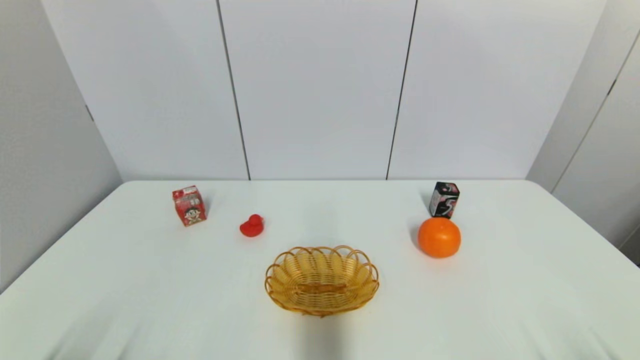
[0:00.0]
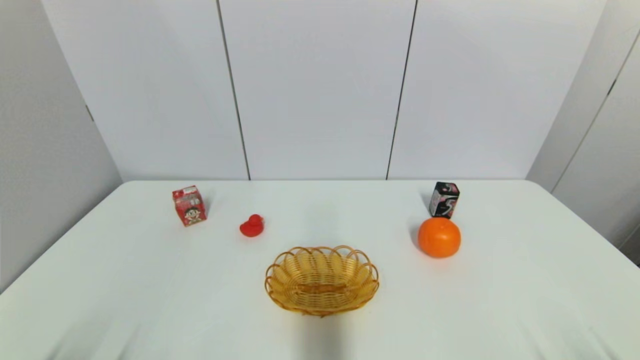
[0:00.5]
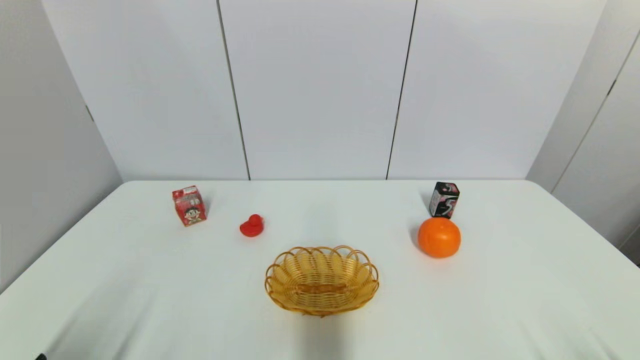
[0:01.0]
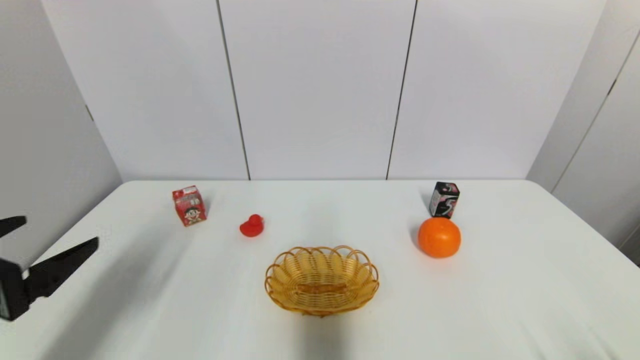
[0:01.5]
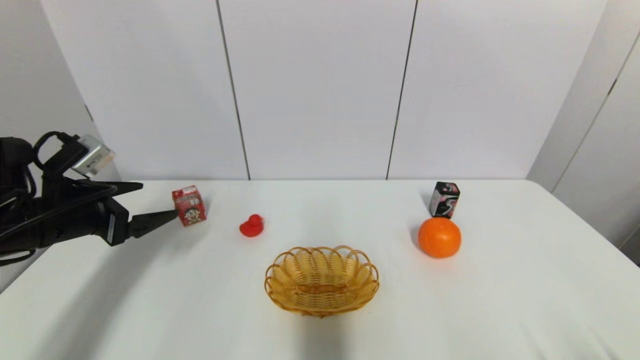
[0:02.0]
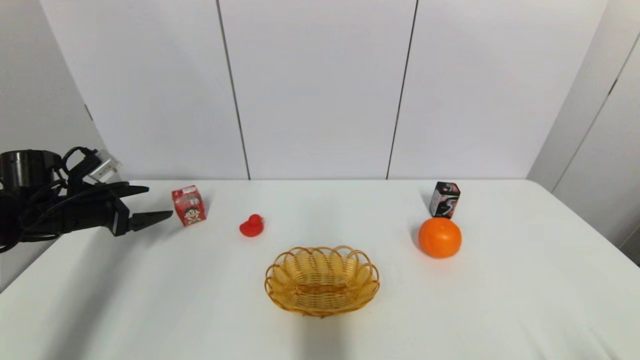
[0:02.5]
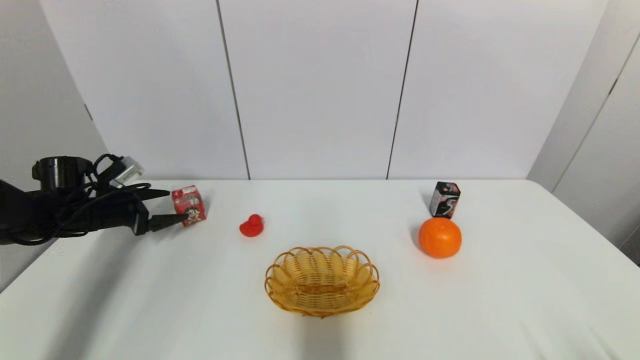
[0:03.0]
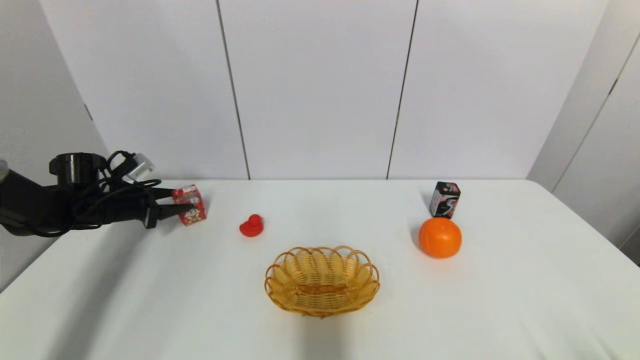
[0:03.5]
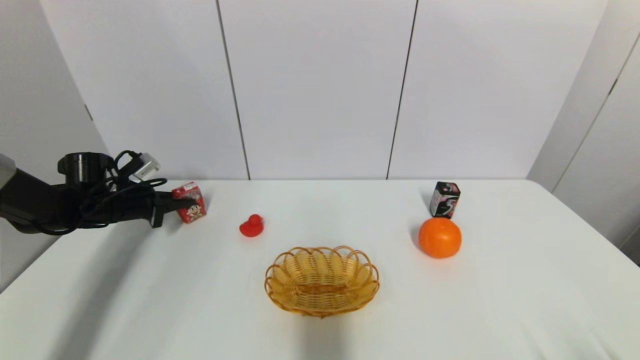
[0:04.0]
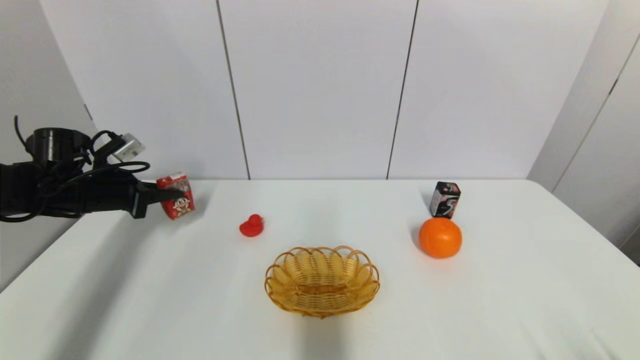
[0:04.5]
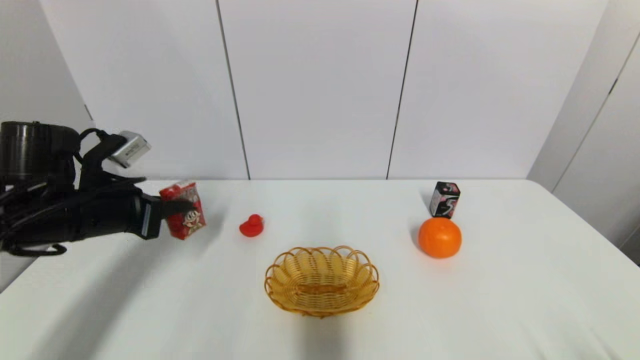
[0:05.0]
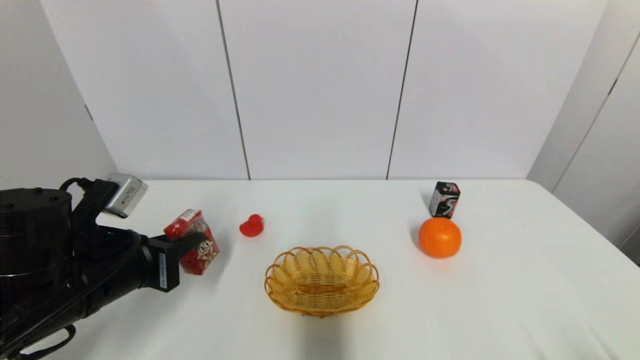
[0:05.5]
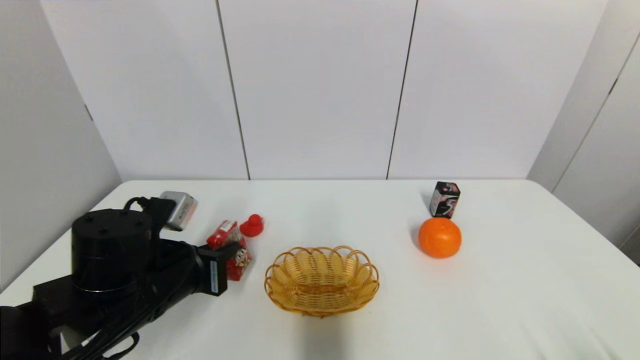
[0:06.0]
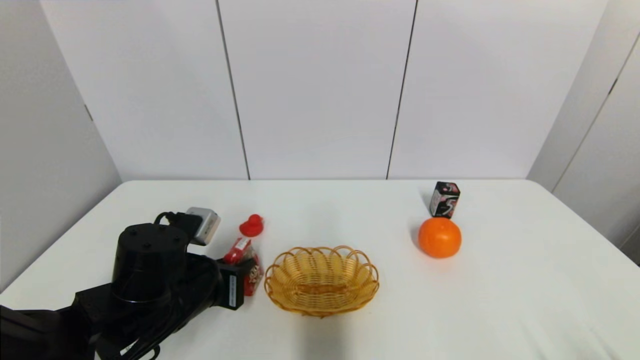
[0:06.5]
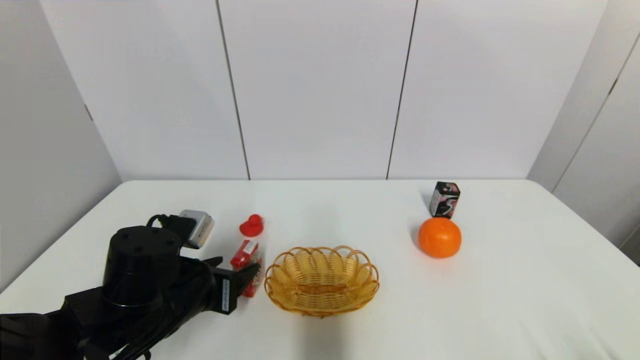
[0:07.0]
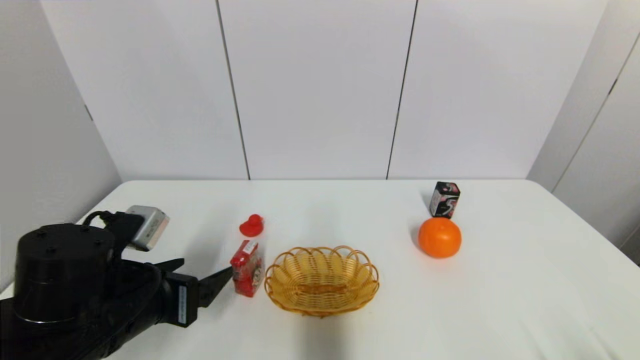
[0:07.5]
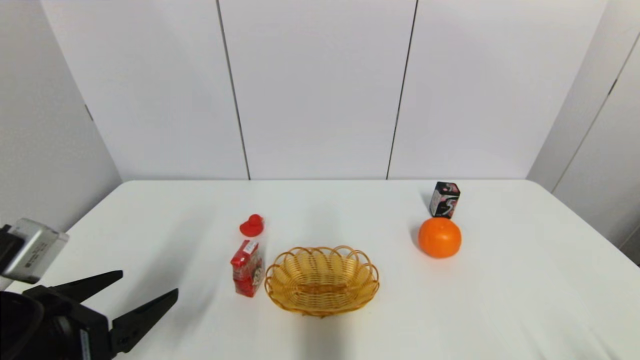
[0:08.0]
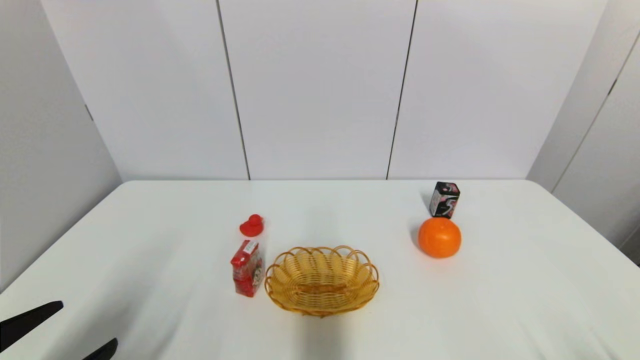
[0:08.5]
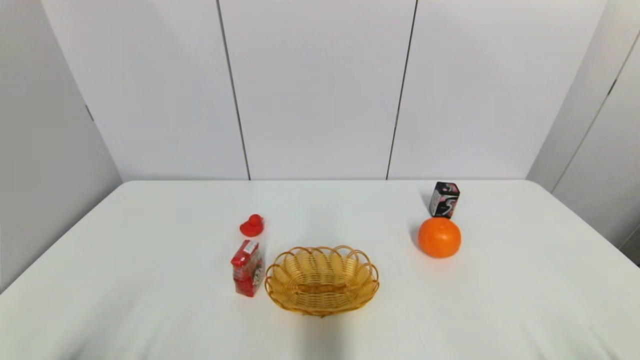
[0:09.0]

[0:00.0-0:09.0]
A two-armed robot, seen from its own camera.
Step, 0:01.0 to 0:03.5: Grasp the wangzai milk with left gripper.
Step, 0:04.5 to 0:06.5: Place the wangzai milk on the table with left gripper.
0:00.0 to 0:02.0: The left gripper travels forward and upward by approximately 30 cm.
0:02.0 to 0:04.5: The left gripper goes about 10 cm forward, and closes up.
0:04.5 to 0:07.0: The left gripper shifts about 25 cm to the right and backward, and opens up.
0:07.0 to 0:09.0: The left gripper is displaced backward and to the left by some 25 cm.

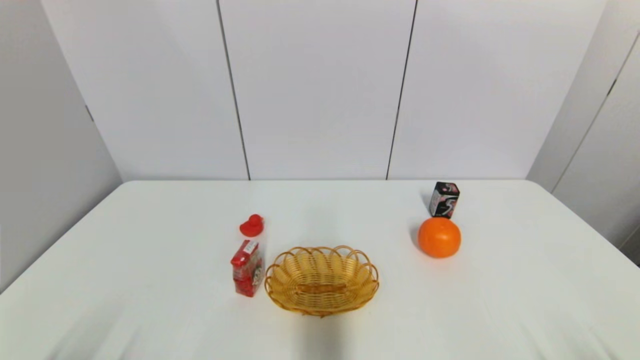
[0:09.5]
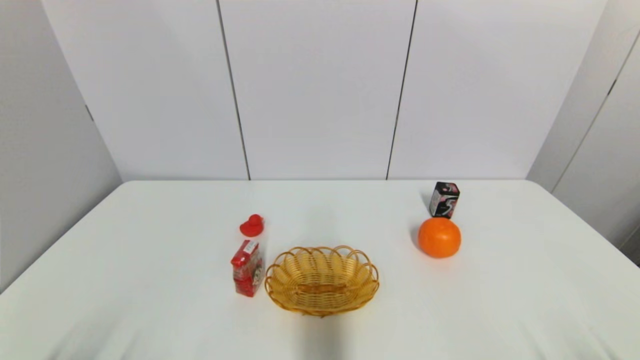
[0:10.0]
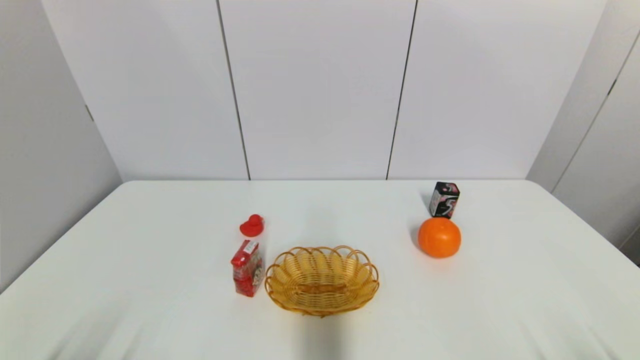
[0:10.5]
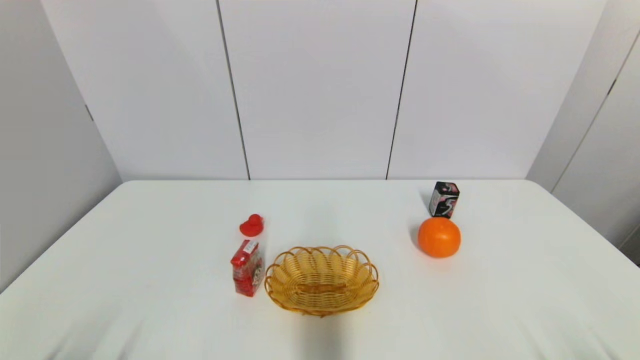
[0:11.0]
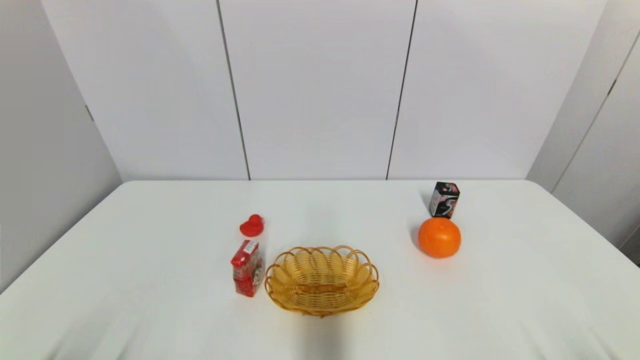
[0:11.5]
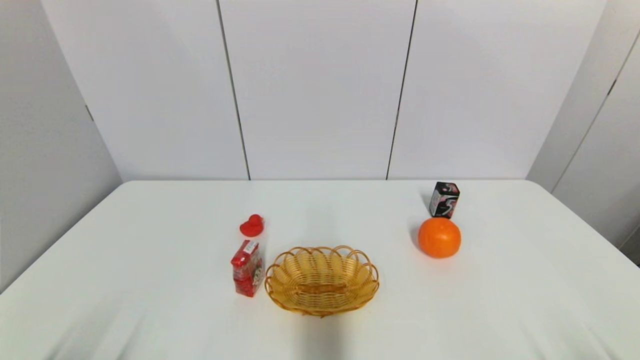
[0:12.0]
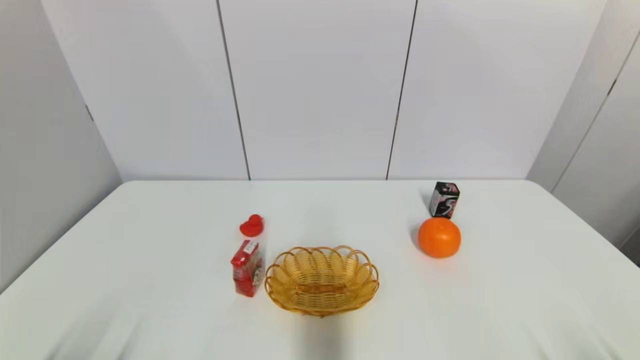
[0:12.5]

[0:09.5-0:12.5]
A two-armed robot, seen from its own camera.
0:11.0 to 0:12.5: Neither gripper changes place.
